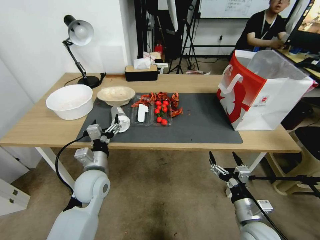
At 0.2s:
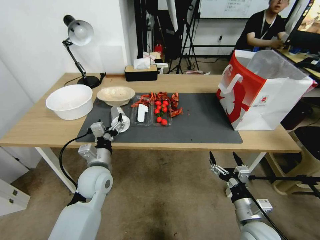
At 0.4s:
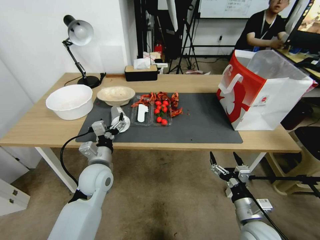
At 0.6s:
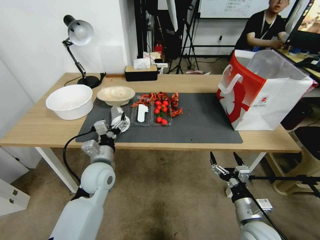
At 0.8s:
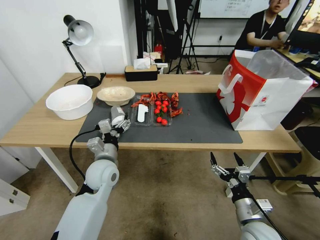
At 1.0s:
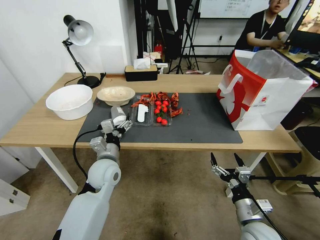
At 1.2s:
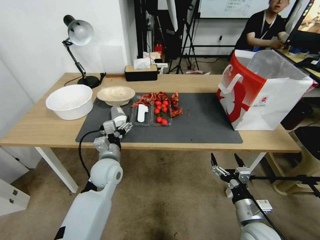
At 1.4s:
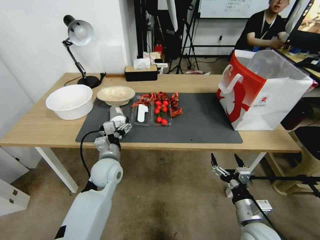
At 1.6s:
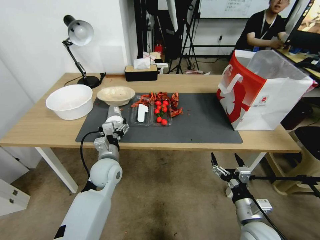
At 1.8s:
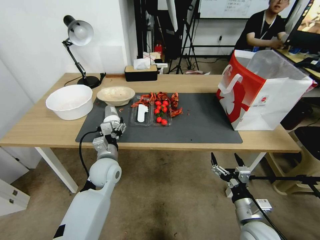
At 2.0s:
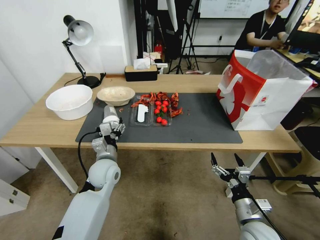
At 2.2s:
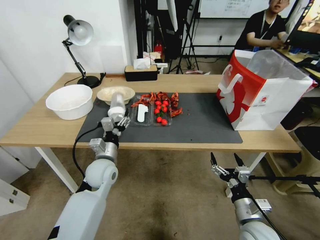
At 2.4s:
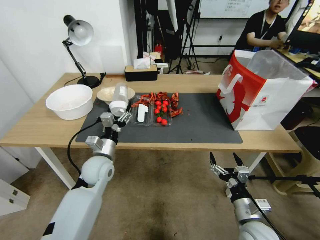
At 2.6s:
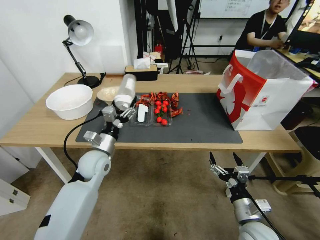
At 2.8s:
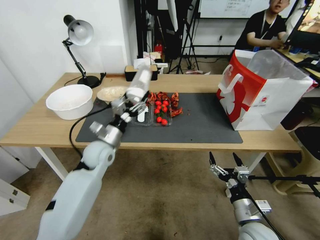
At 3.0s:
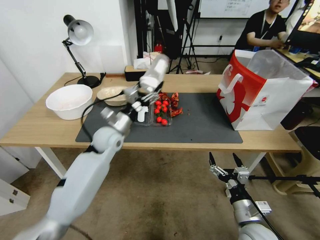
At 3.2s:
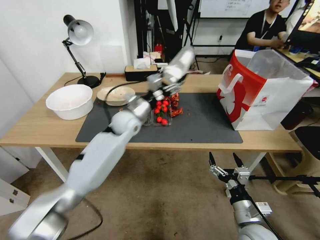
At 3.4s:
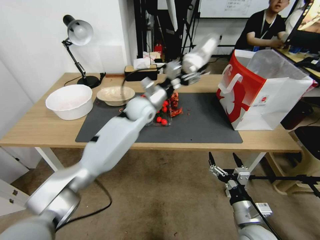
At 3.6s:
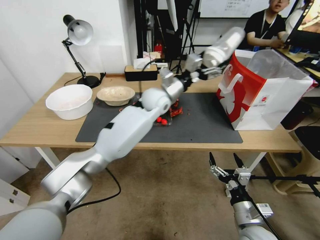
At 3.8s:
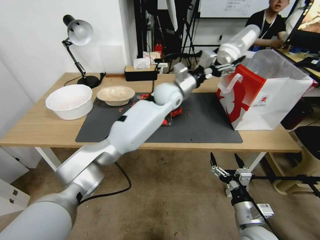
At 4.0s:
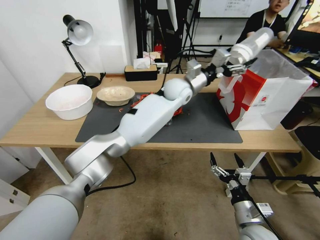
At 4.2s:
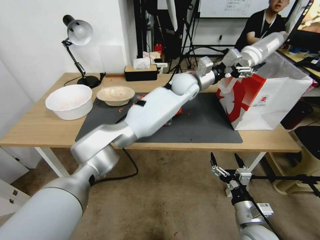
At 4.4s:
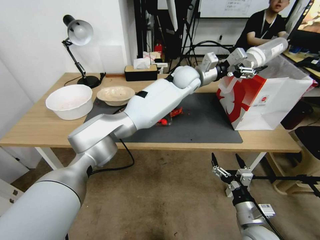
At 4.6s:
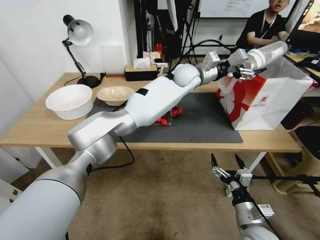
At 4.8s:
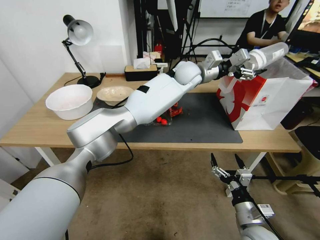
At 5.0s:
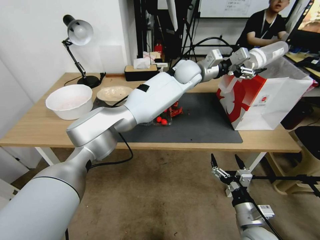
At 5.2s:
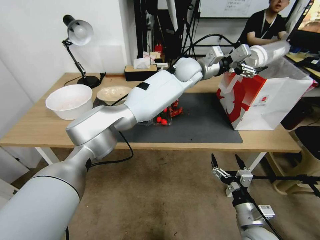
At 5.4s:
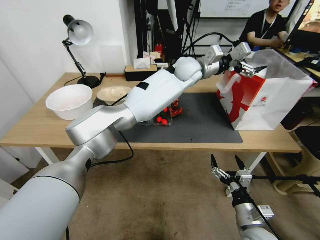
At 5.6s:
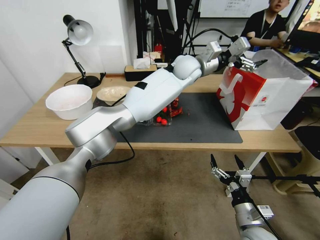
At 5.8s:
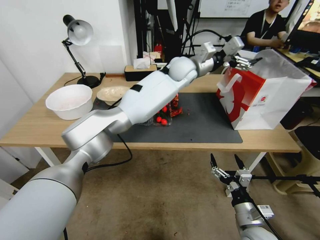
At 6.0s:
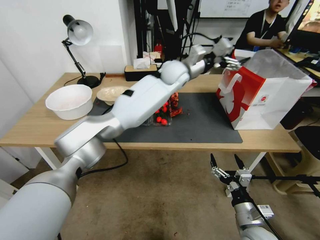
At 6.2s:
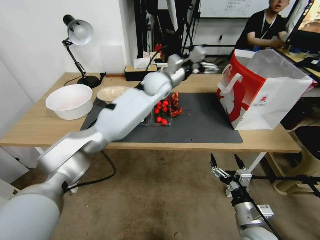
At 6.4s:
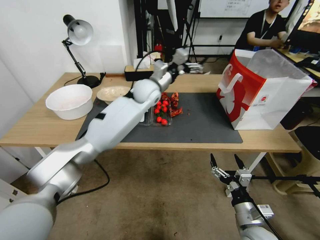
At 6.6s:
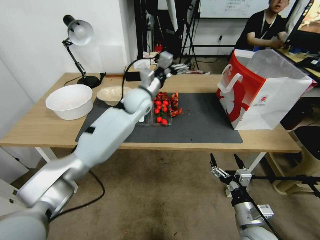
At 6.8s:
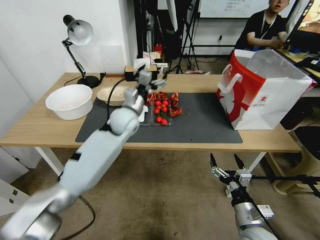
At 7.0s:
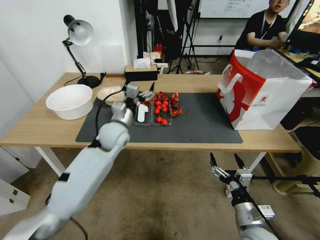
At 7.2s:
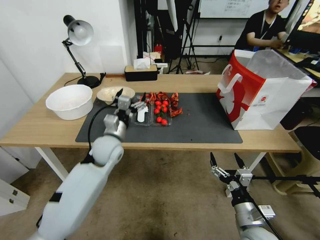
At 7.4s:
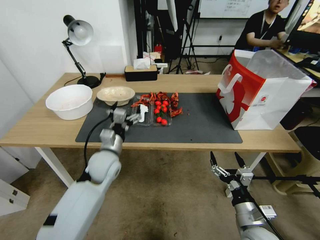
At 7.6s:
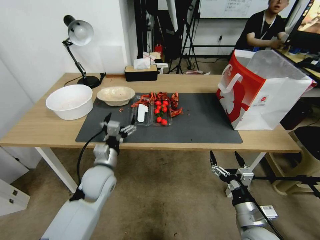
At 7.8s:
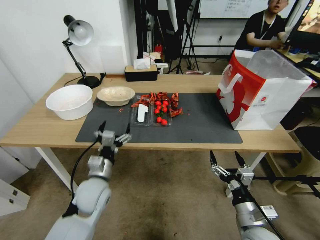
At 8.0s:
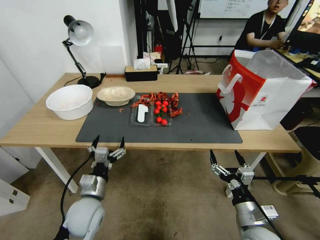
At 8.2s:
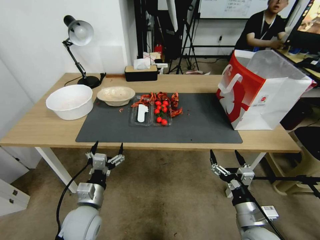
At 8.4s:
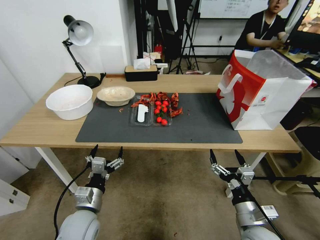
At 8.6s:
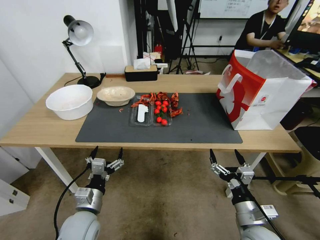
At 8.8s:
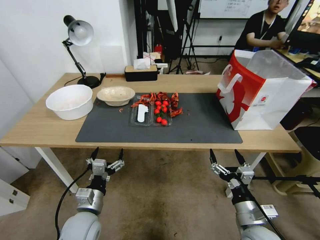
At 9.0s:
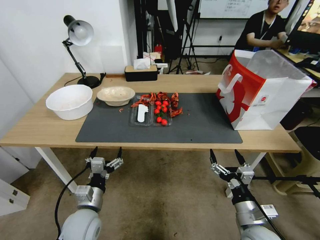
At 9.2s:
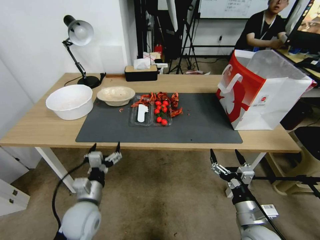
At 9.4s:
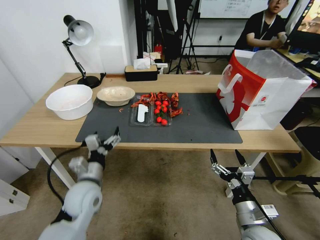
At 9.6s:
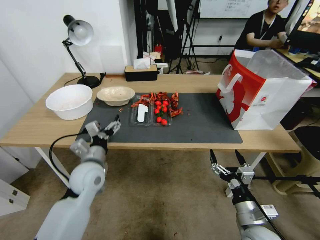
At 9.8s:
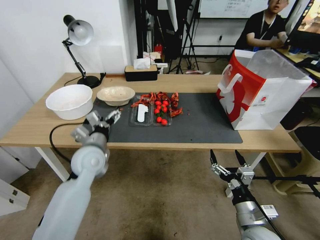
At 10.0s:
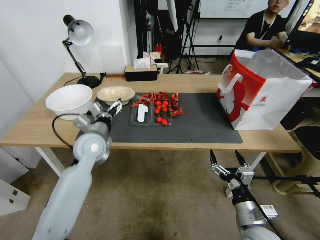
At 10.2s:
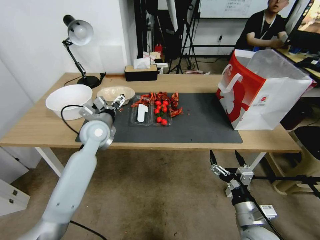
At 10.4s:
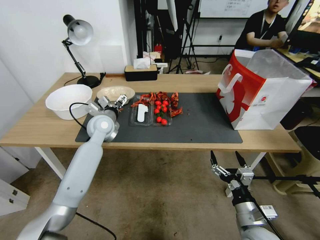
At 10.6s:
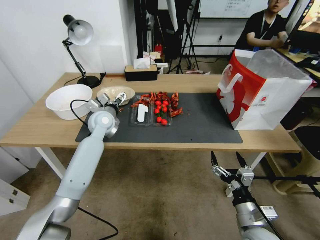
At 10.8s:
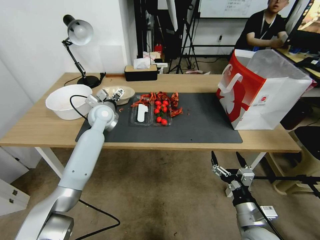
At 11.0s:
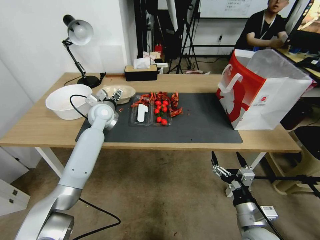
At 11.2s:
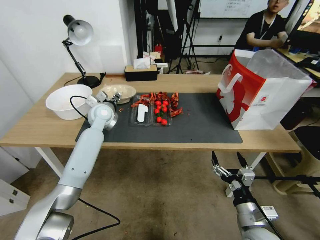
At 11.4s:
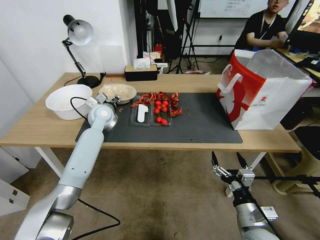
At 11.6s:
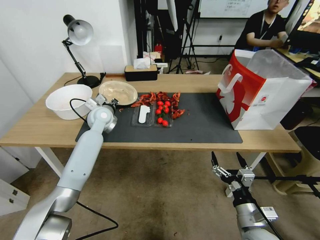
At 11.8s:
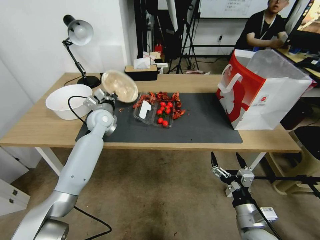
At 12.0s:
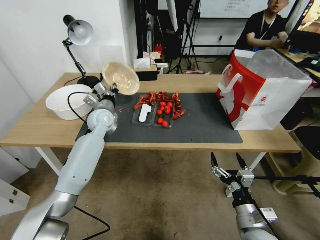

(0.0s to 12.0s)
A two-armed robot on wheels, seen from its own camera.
0.0s - 1.6s: The left gripper ends up about 5 cm from where it was.
1.6s - 3.0s: The left gripper travels forward and upward by about 10 cm.
3.0s - 4.4s: The left gripper moves to the right, forward and upward, approximately 35 cm.
4.4s - 6.0s: The left gripper ends up approximately 5 cm from where it was.
6.0s - 7.6s: The left gripper goes roughly 40 cm backward, to the left and downward.
7.6s - 9.0s: The left gripper moves backward and downward, roughly 10 cm.
9.0s - 10.4s: The left gripper heads forward and upward, covering roughly 30 cm.
10.4s - 12.0s: The left gripper goes some 5 cm forward, and closes its fingers.

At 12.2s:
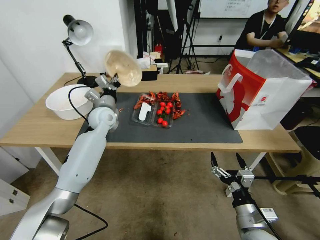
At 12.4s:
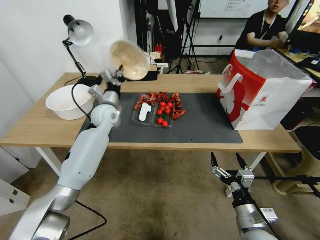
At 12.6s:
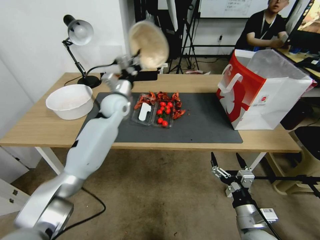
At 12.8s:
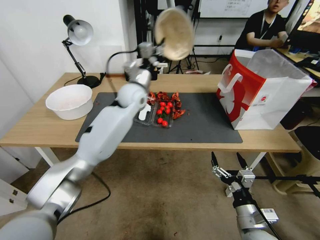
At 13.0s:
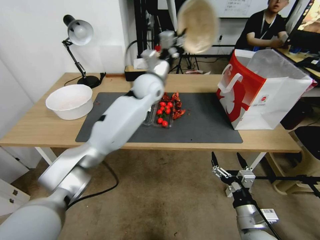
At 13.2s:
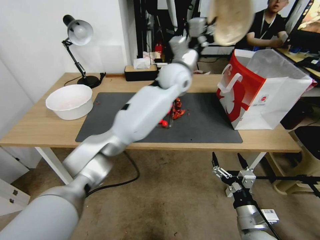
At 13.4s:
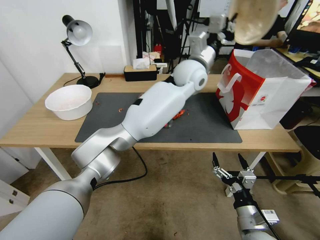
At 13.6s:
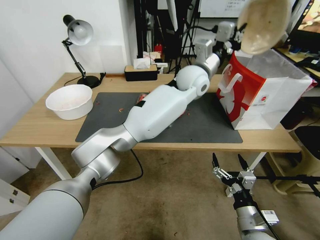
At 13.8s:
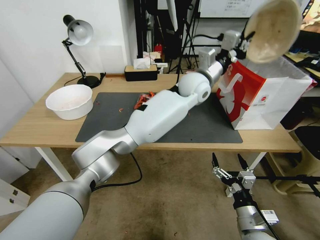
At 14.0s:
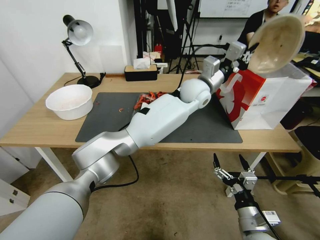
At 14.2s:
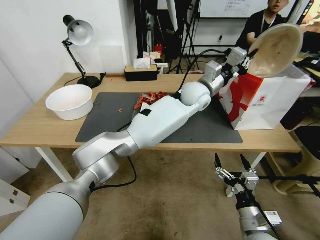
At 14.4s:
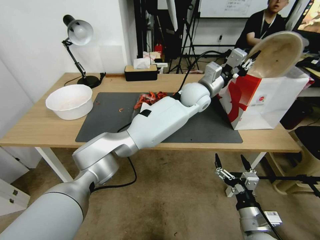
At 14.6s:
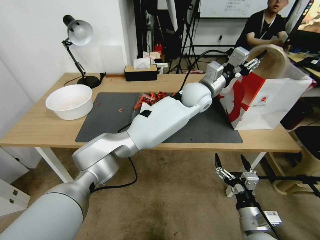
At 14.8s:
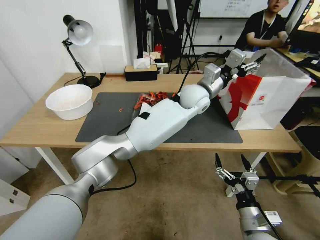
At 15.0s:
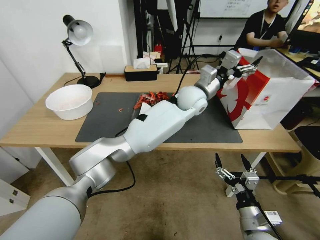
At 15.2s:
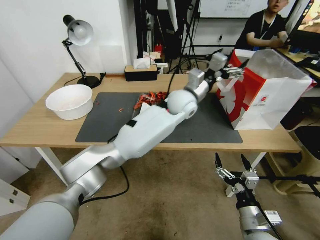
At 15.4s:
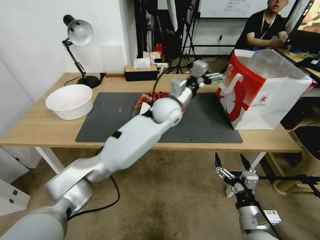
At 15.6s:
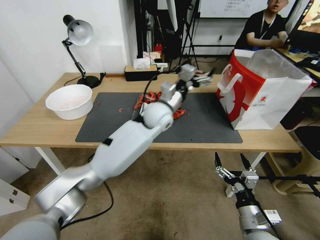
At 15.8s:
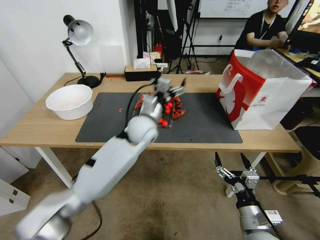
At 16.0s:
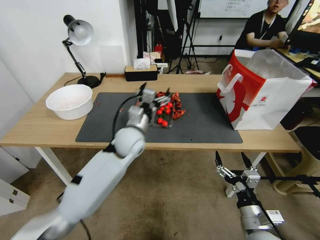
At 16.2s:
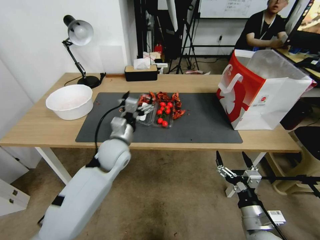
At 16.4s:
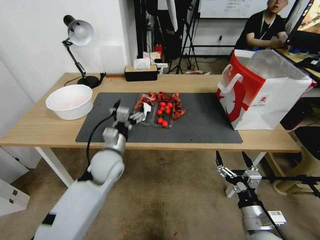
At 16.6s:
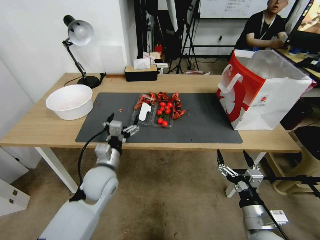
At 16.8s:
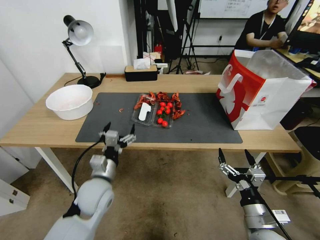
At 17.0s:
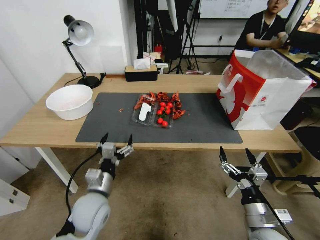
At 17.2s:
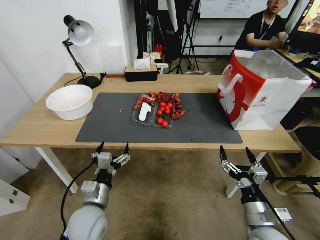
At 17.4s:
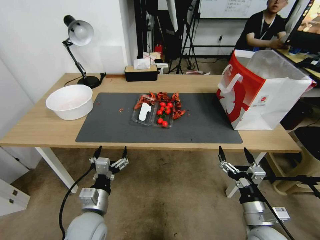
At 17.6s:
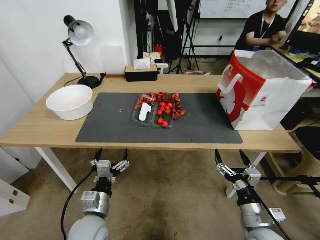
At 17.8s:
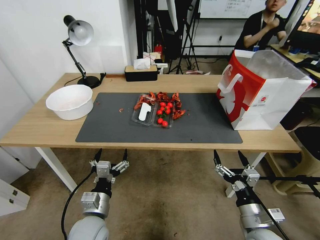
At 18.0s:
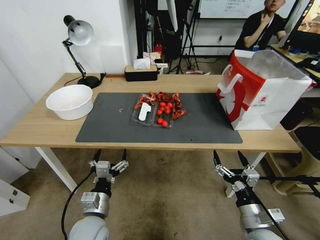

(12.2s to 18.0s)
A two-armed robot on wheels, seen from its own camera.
12.2s - 13.6s: The left gripper moves to the right and upward, about 35 cm.
13.6s - 15.0s: The left gripper is displaced downward by about 5 cm, and opens.
15.0s - 16.6s: The left gripper heads to the left, backward and downward, covering some 40 cm.
16.6s - 18.0s: The left gripper heads backward and downward, covering about 15 cm.

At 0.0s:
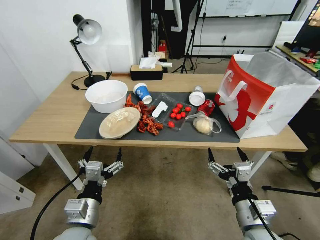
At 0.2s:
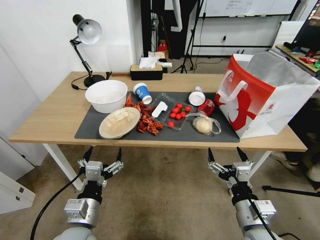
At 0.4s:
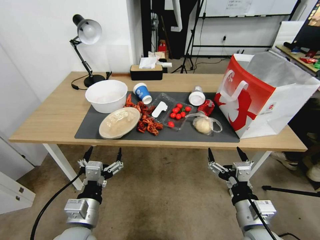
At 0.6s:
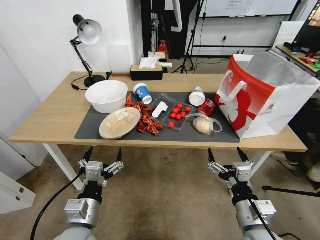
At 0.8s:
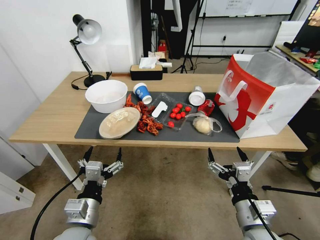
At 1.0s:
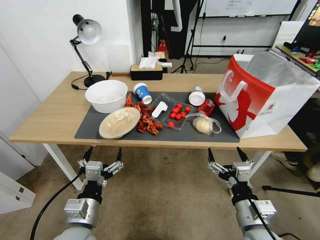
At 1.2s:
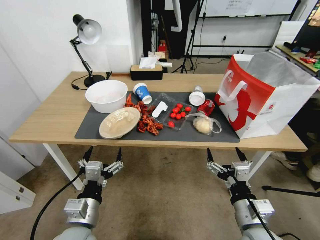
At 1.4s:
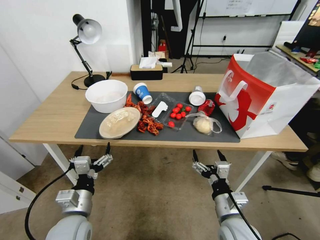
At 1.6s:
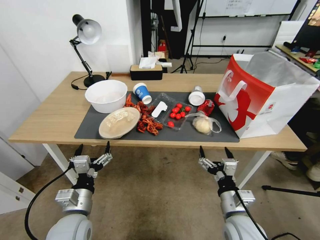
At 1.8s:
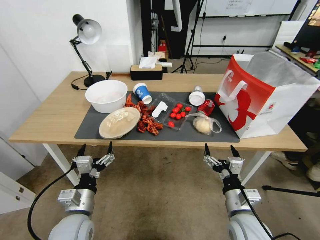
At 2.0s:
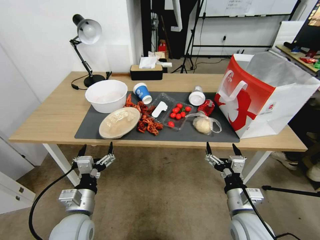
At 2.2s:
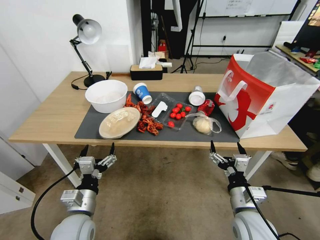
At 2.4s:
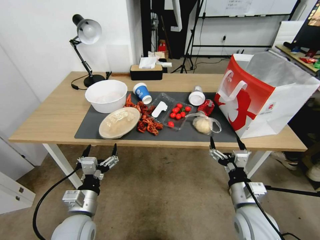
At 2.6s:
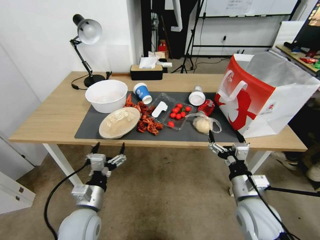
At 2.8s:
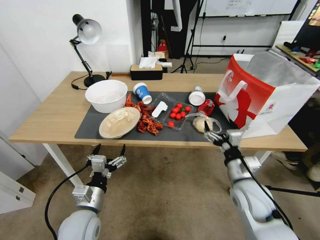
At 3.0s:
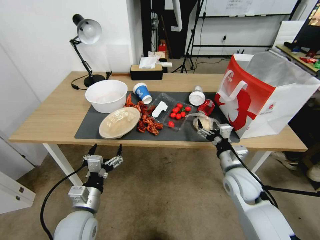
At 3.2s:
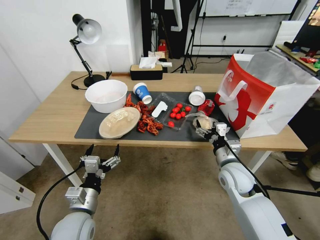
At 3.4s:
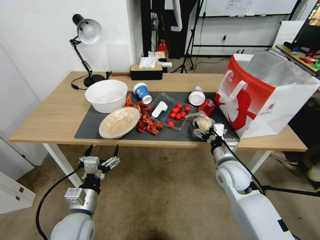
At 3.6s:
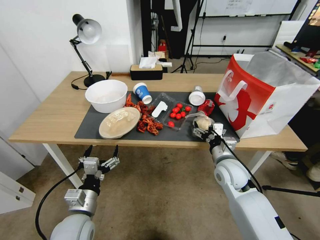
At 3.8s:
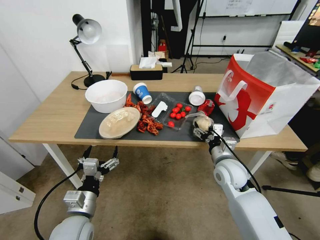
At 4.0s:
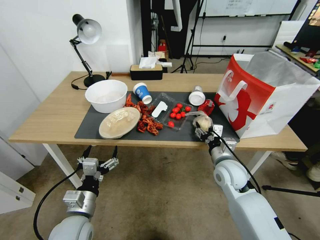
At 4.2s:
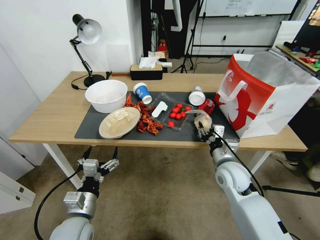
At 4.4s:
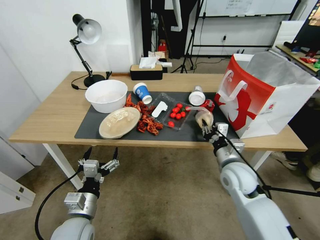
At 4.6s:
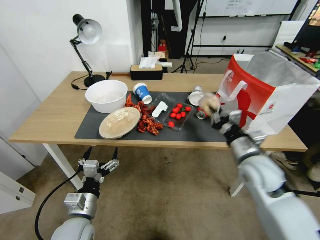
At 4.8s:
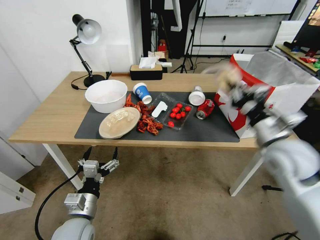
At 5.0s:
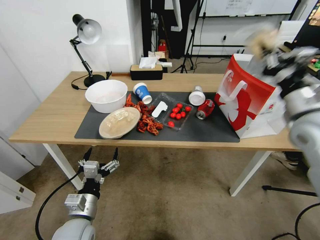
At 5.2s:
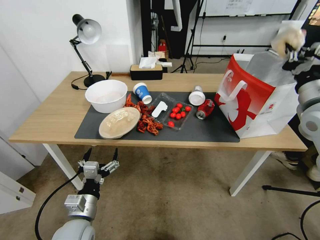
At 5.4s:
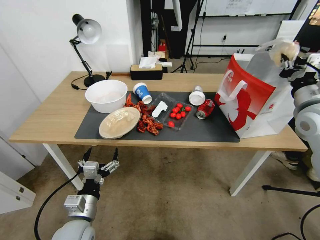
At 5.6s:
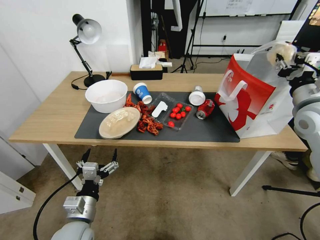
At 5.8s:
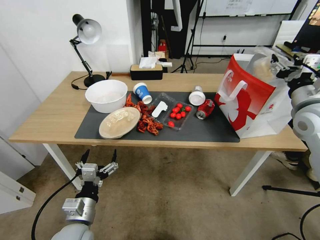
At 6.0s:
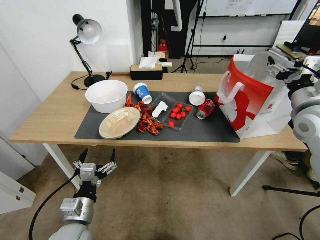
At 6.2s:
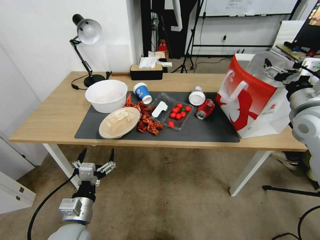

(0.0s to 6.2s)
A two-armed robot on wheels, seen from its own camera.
1.6s - 3.2s: The right gripper goes about 15 cm forward.
3.2s - 4.6s: The right gripper is displaced upward by about 10 cm, and closes its fingers.
4.6s - 6.2s: The right gripper goes approximately 20 cm upward, to the right and forward, and opens its fingers.
